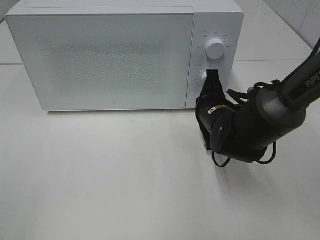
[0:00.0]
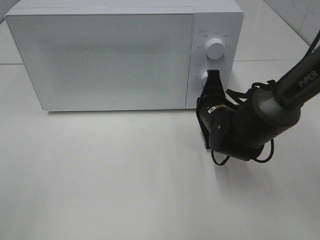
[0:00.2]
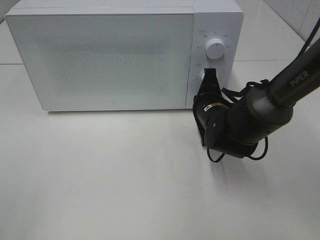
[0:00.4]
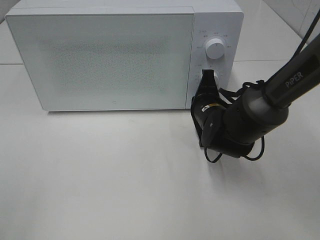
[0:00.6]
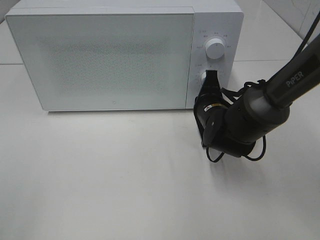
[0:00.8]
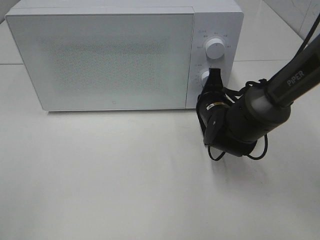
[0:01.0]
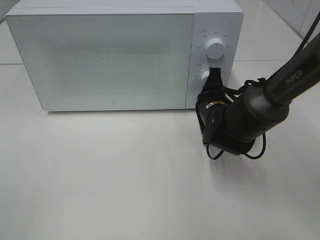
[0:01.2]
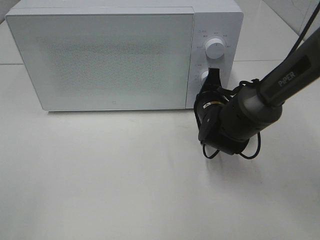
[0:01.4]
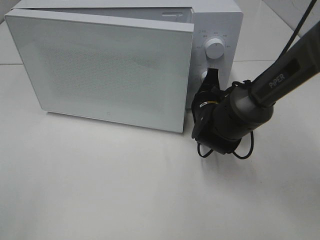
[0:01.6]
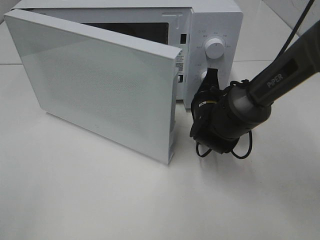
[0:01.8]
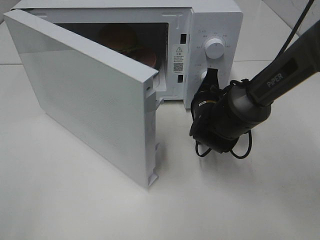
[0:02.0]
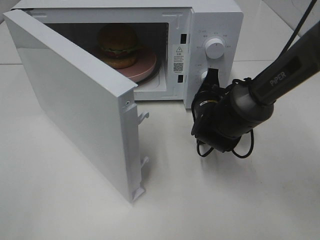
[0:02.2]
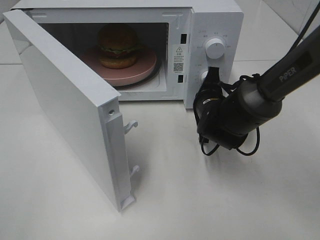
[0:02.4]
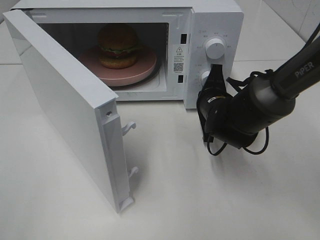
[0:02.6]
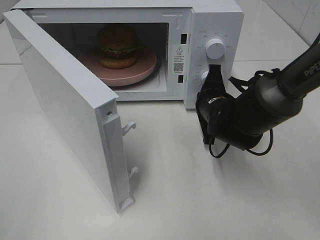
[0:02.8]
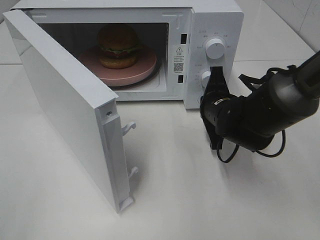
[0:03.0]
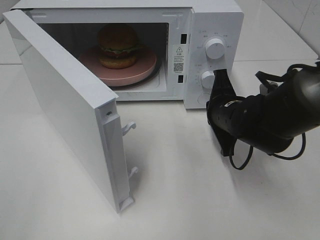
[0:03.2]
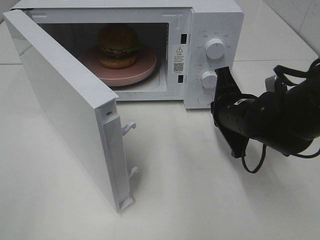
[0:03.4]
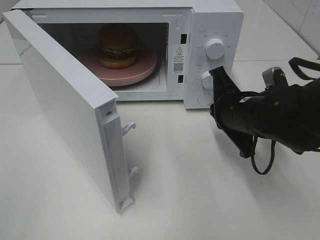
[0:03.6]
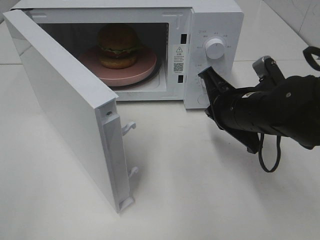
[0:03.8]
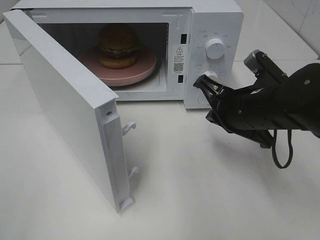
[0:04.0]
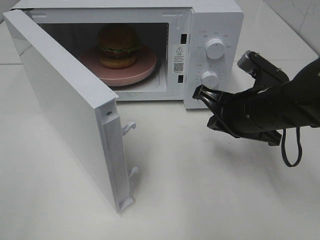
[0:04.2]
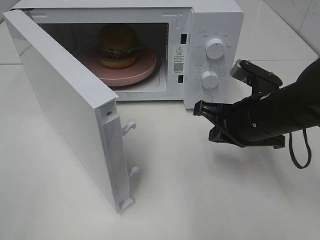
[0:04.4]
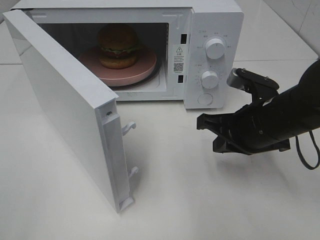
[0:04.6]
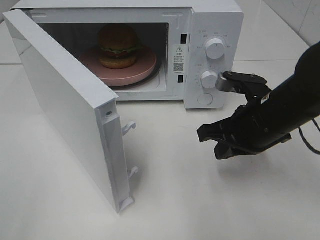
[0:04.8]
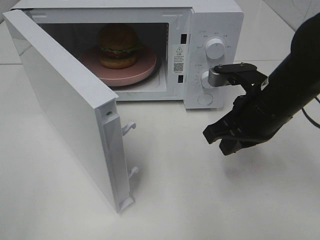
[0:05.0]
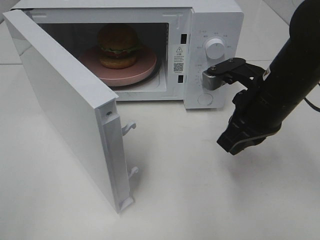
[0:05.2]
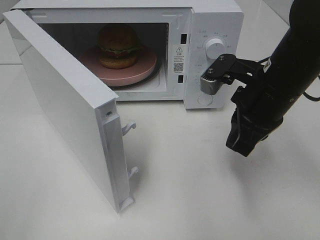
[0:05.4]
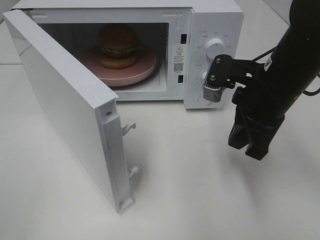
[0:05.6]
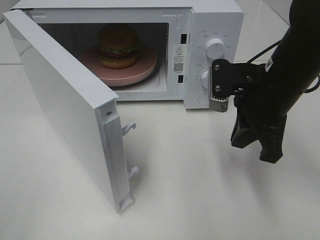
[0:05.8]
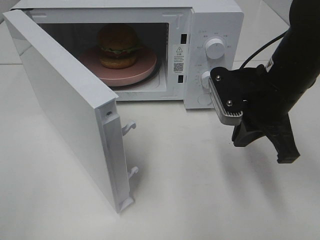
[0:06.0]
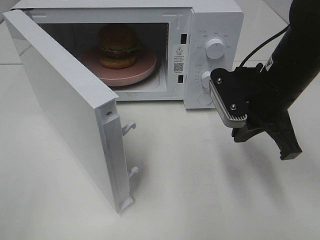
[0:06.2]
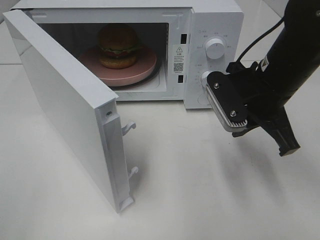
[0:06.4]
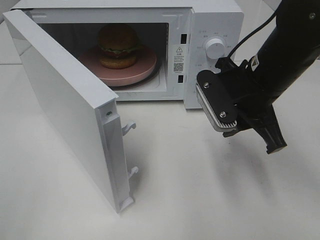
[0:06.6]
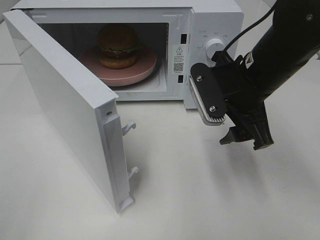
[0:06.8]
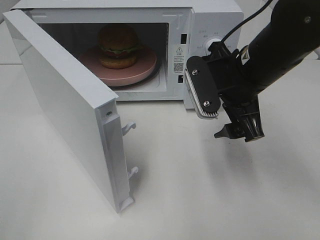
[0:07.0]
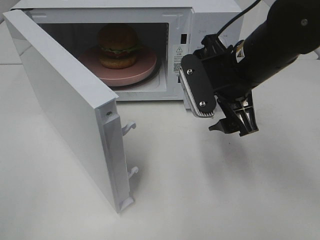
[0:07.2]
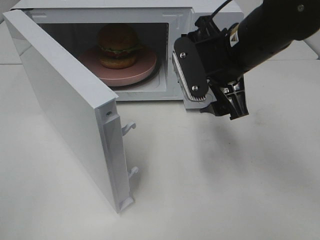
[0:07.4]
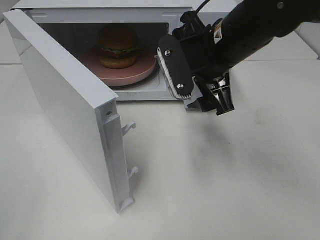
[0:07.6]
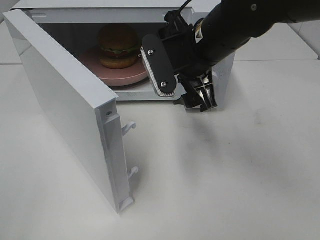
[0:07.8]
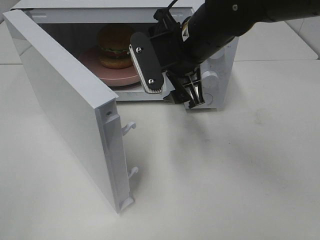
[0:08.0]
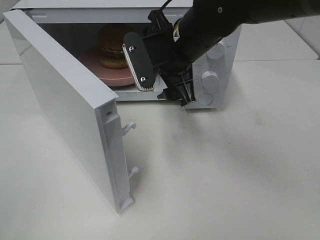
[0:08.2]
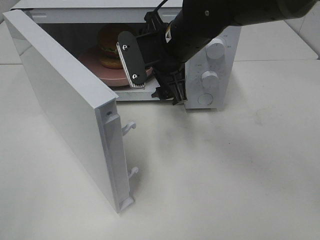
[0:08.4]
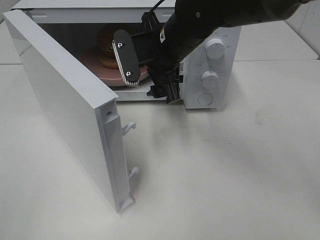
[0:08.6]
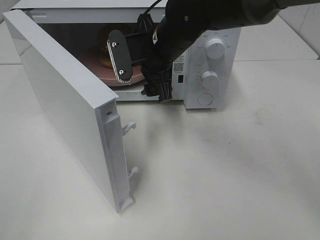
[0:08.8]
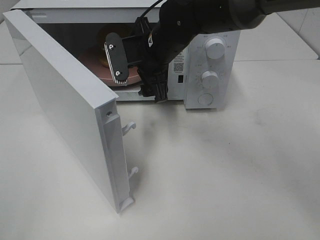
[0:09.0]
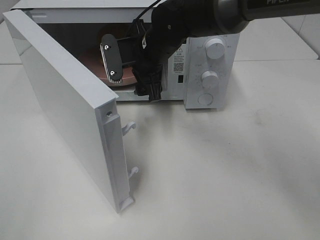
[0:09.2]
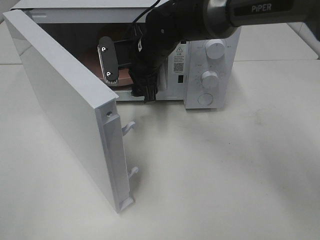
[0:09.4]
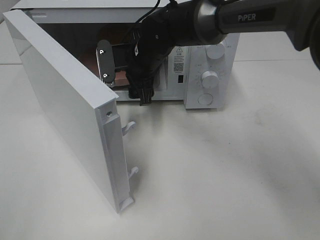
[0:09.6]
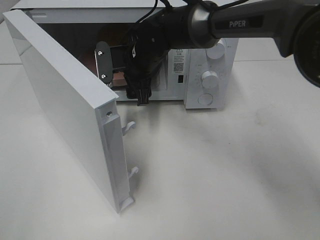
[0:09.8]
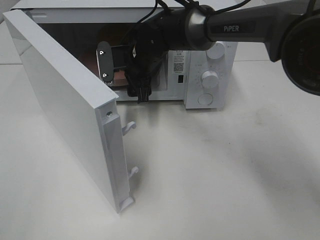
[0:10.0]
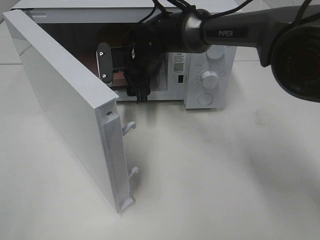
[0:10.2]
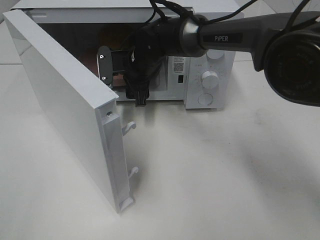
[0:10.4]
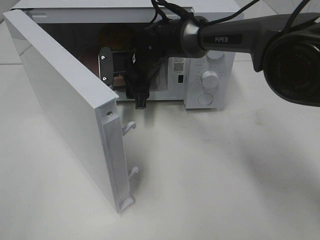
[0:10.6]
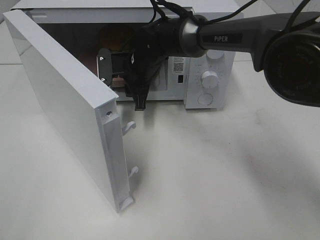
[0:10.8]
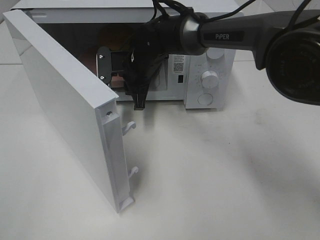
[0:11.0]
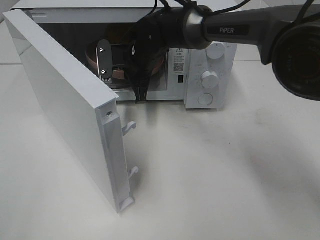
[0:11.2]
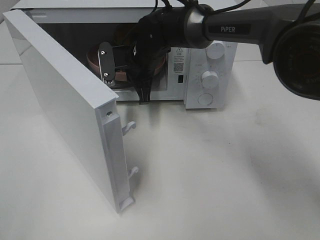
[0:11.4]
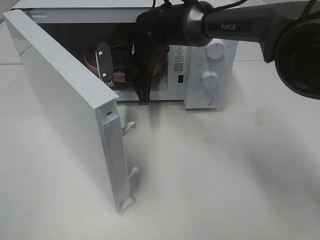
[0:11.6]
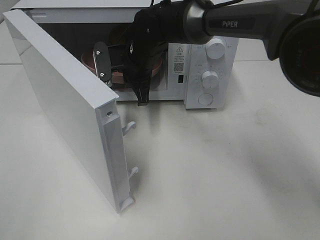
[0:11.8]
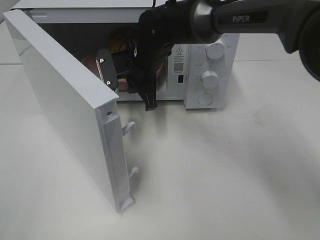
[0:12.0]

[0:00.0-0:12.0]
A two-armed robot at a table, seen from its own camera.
Task of the whole recording: Heat the burger.
Step, 0:00.0 to 0:02.8: Right hand: press the switch.
Step, 0:03.0 to 0:11.2: Right hand: grab the plate with the hamburger.
0:00.0 to 0:01.6: The grippers stay close to where they were, moving slightly.
0:03.0 to 0:04.4: The right gripper heads backward and upward, covering approximately 10 cm.
0:04.4 to 0:06.0: The right gripper goes some 5 cm upward.
0:06.0 to 0:07.6: The right gripper travels to the left by about 5 cm, and opens its fingers.
0:07.6 to 0:09.0: The right gripper moves forward and to the left, roughly 10 cm.
0:09.0 to 0:10.4: The right gripper moves forward and downward, roughly 10 cm.
0:10.4 to 0:12.0: The right gripper closes up.

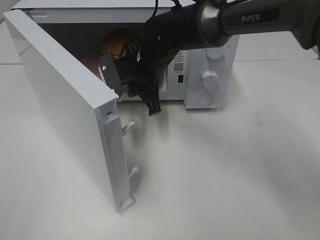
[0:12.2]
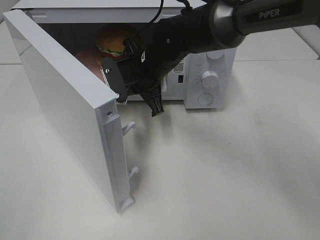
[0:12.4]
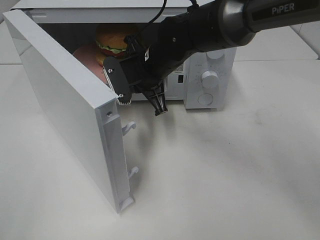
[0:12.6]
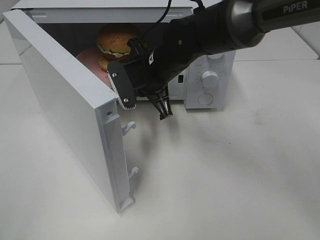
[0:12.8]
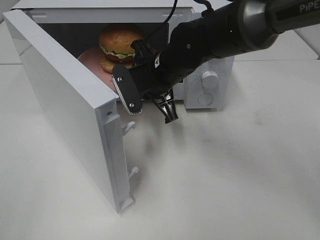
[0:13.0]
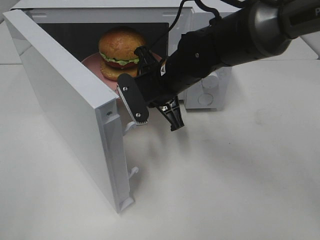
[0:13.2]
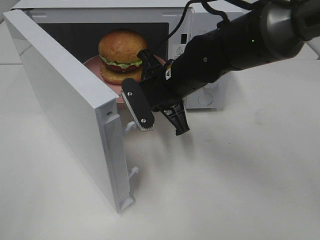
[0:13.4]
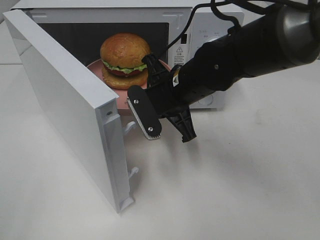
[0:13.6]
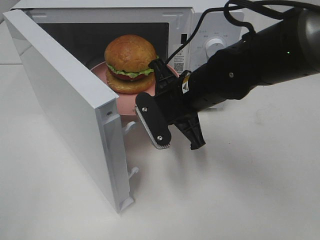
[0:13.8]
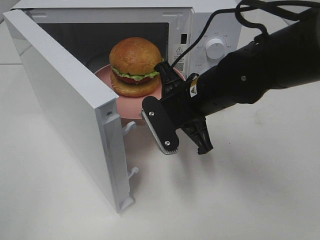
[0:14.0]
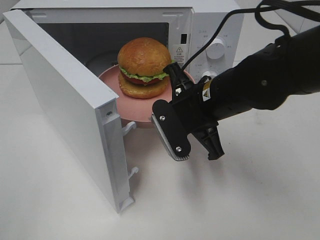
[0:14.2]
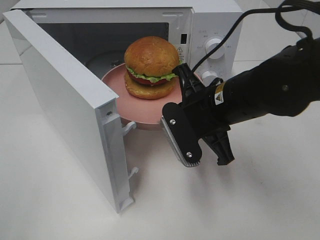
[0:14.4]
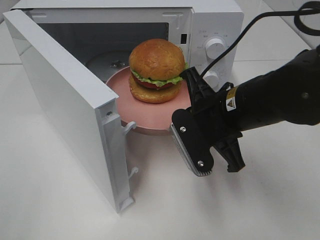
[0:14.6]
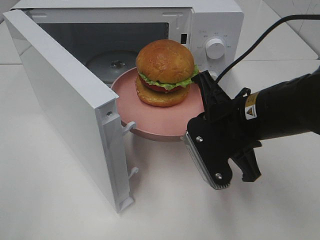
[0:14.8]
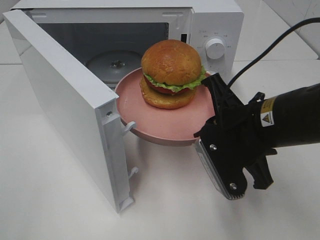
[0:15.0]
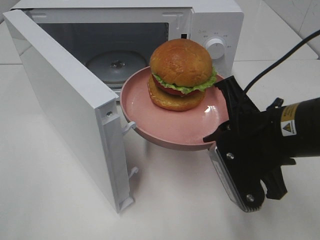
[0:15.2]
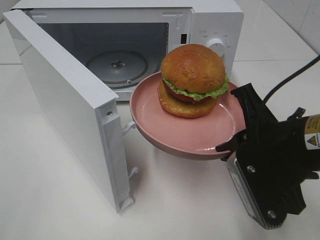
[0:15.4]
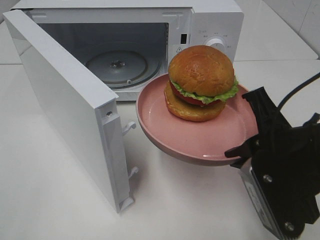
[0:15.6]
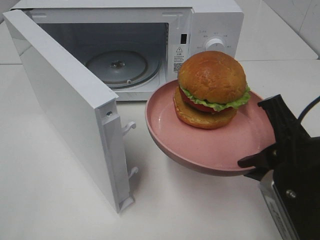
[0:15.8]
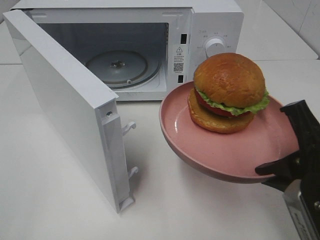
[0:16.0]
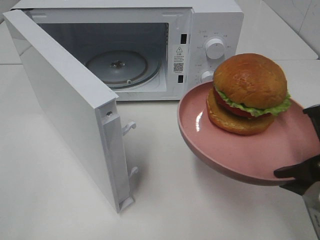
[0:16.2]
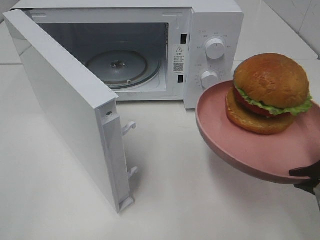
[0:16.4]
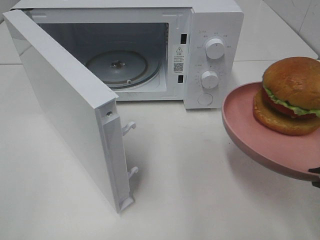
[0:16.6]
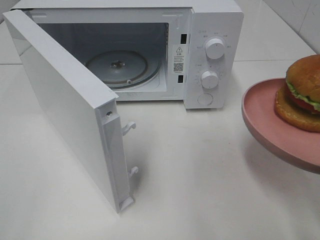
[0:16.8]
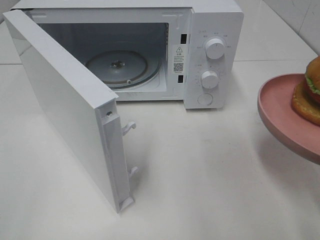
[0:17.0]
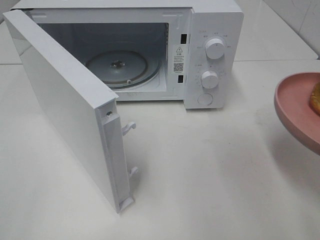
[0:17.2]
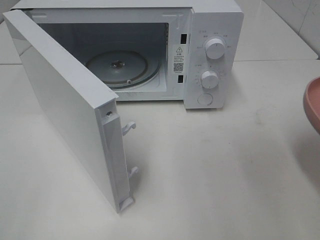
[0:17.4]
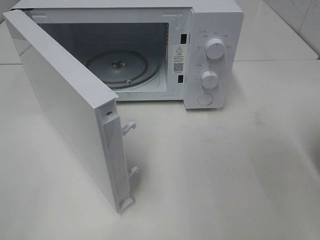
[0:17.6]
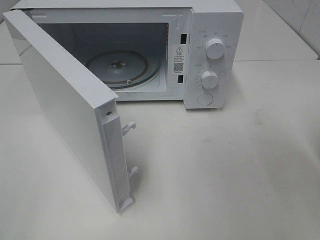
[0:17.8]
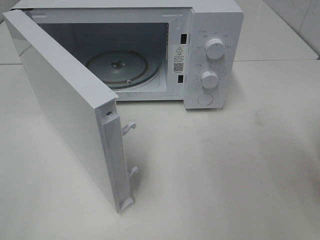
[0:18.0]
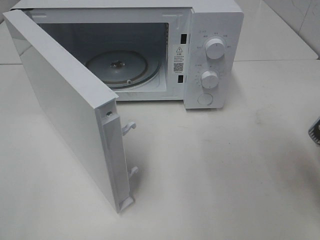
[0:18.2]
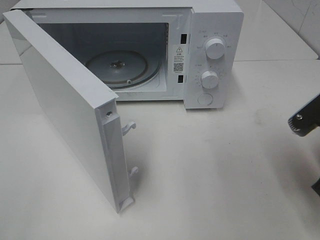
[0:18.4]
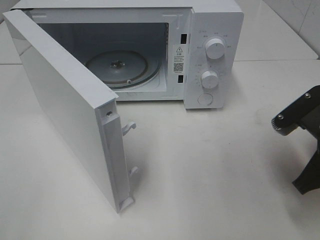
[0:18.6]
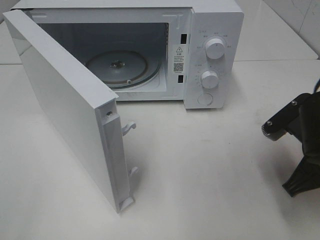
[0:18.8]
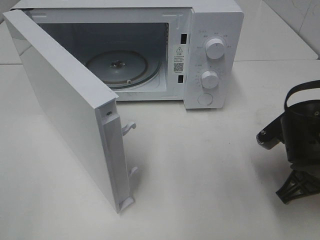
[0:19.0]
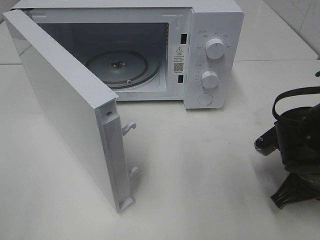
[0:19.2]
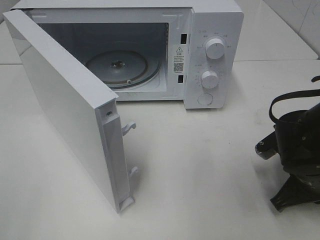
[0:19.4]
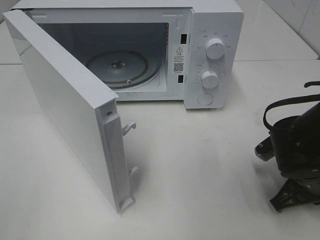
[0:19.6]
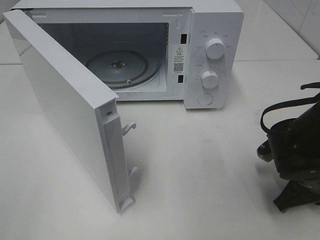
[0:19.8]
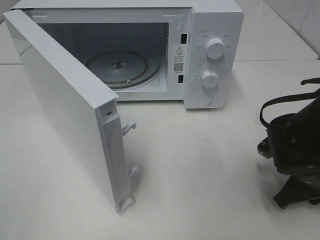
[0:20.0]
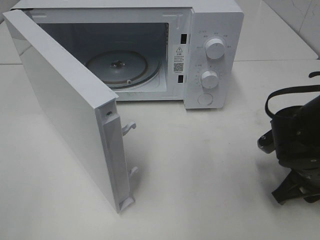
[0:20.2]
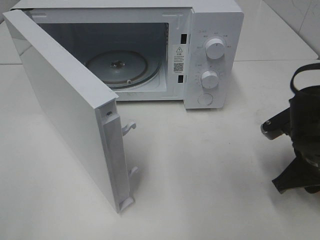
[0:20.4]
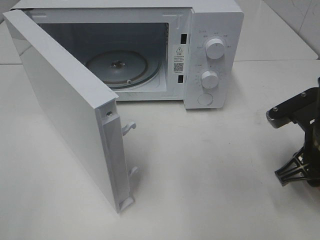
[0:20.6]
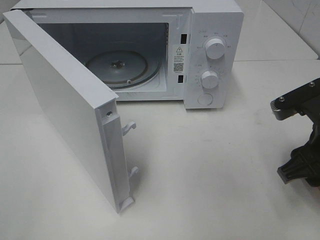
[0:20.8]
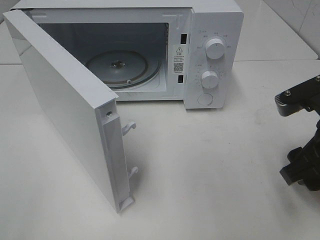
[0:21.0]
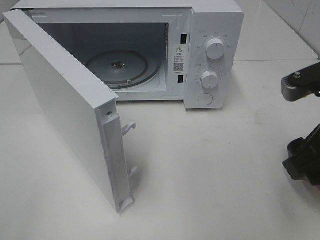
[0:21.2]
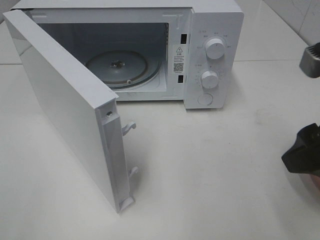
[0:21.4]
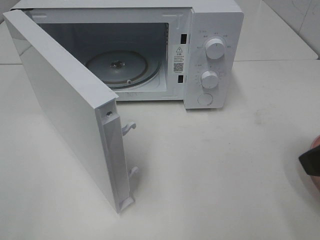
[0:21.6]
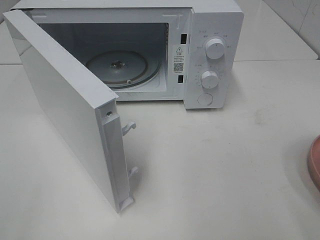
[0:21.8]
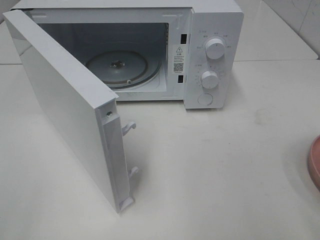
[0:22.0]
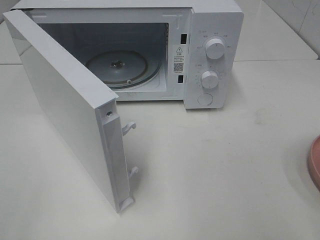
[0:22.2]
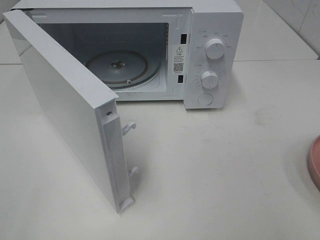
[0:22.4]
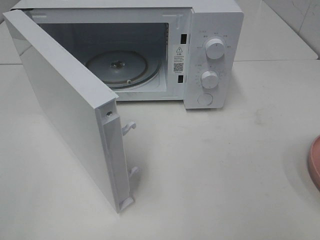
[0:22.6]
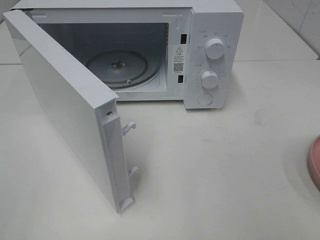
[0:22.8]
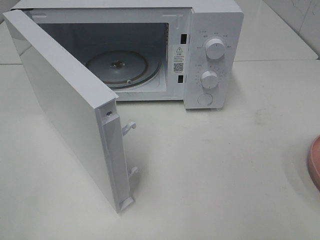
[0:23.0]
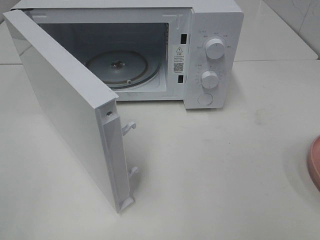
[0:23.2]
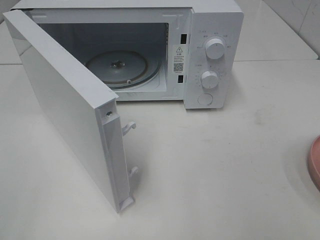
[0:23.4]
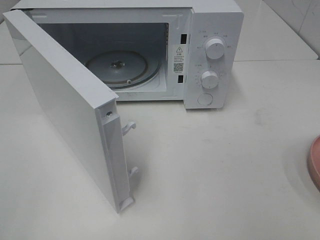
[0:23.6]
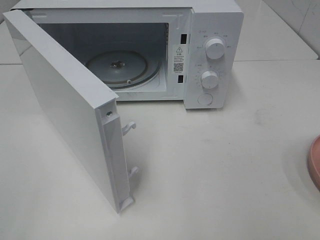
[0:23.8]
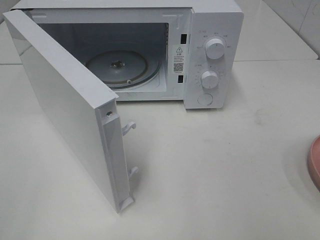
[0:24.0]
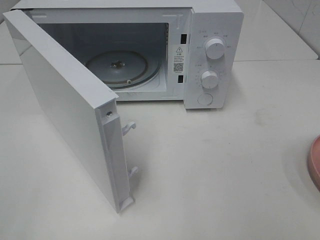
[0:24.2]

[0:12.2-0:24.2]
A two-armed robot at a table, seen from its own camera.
Task of the whole recording: Heat the burger.
Step, 0:12.2 to 0:20.0: Right hand: place the plate on the table.
0:12.2 to 0:13.8: The right gripper shifts about 10 cm backward and to the right.
0:13.8 to 0:15.2: The right gripper goes some 15 cm backward and to the right.
0:15.2 to 0:16.6: The right gripper goes approximately 10 cm to the right and backward.
0:18.2 to 0:19.8: The right gripper shifts some 15 cm downward and forward.
0:19.8 to 0:21.2: The right gripper travels upward by approximately 15 cm, and opens.
0:21.2 to 0:22.6: The right gripper travels backward and to the right by roughly 15 cm.
